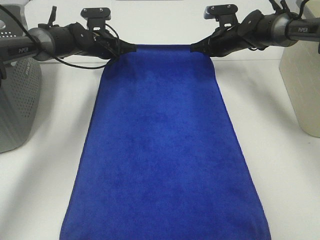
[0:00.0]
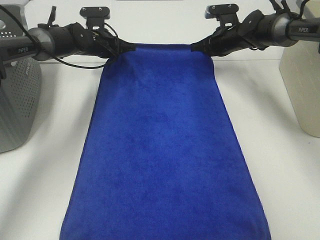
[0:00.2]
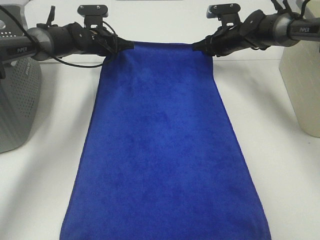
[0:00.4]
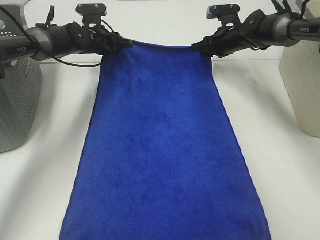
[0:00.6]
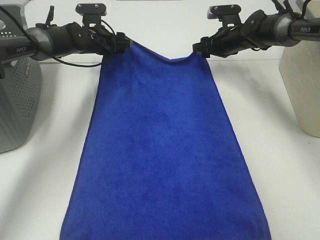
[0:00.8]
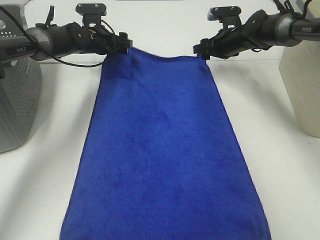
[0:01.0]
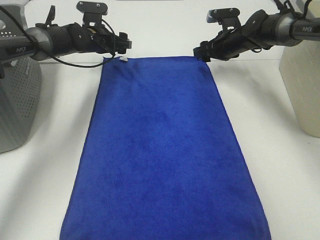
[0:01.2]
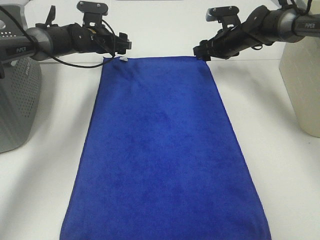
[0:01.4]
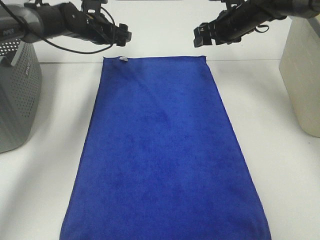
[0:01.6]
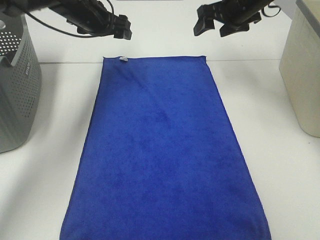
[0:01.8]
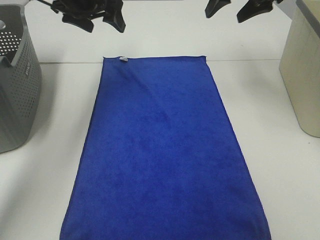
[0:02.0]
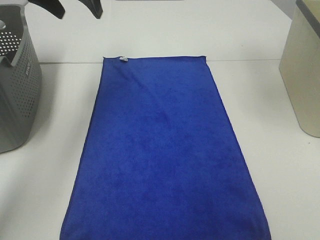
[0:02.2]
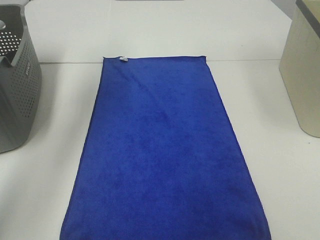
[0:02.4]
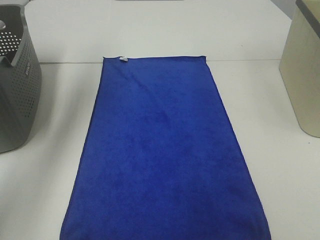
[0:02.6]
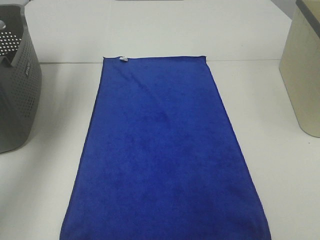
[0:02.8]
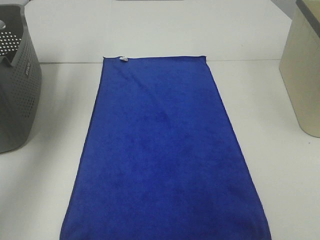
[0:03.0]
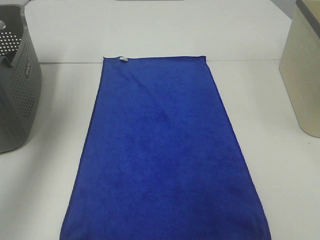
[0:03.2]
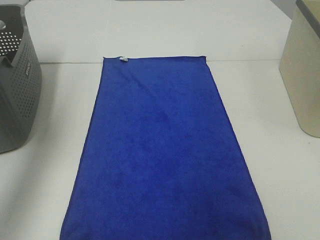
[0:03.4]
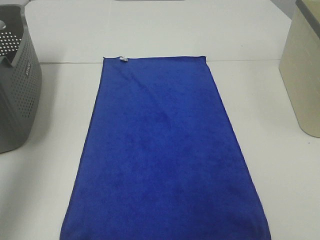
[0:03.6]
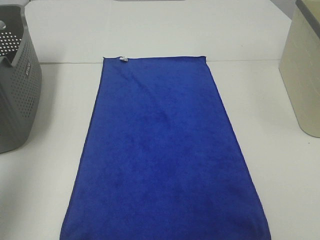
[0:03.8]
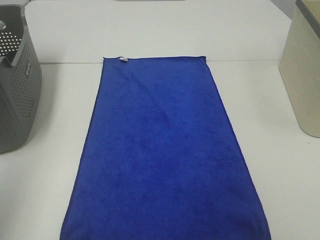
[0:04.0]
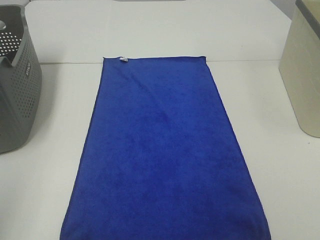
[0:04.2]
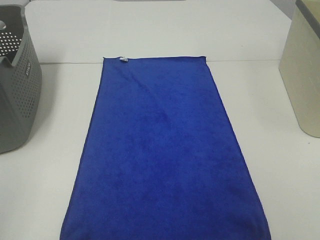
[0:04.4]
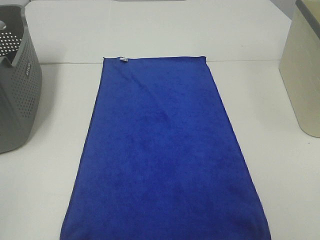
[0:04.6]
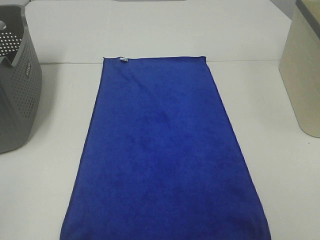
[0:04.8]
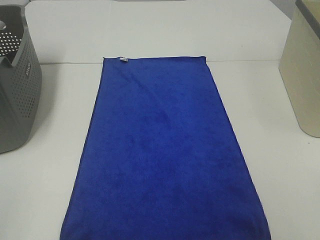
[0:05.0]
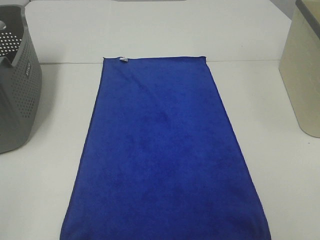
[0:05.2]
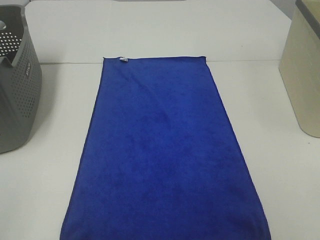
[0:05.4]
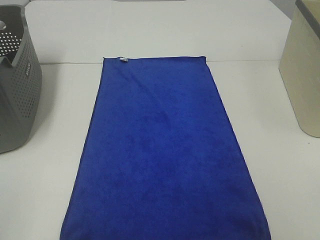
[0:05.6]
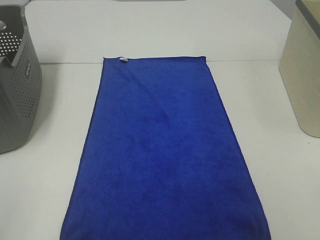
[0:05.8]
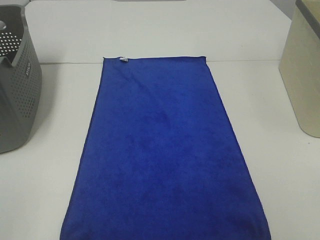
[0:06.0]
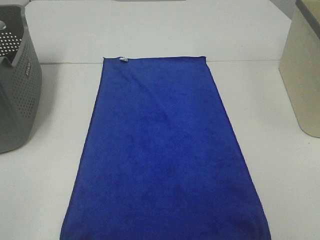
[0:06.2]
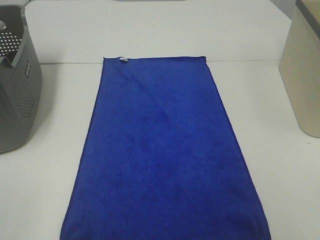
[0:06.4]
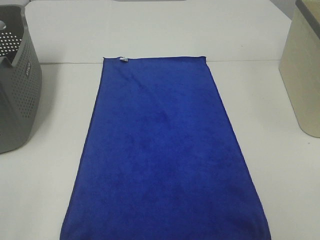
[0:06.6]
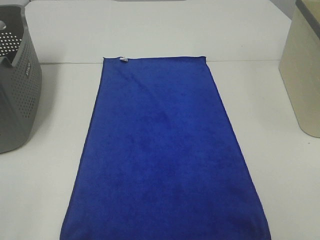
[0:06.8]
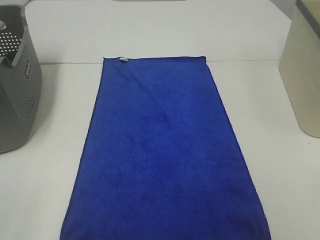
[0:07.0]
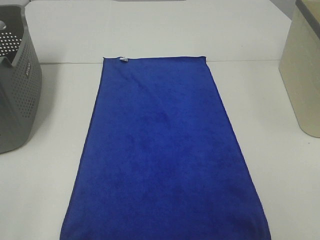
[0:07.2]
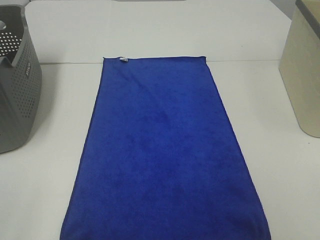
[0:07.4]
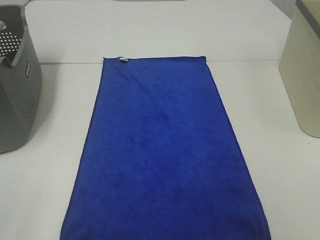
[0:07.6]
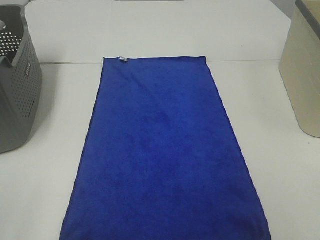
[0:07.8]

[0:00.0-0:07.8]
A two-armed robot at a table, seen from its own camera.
Task of the whole recording: Remove the towel and place it.
0:00.0 to 0:01.6: Both grippers move upward, approximately 5 cm. The right gripper opens up. Meanwhile the left gripper opens up.
0:01.6 to 0:03.2: The right gripper moves backward and upward, roughly 40 cm. The left gripper is displaced upward, backward and to the left by approximately 35 cm.
0:03.2 to 0:04.6: The left gripper shifts roughly 35 cm backward and downward.

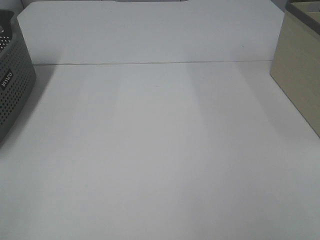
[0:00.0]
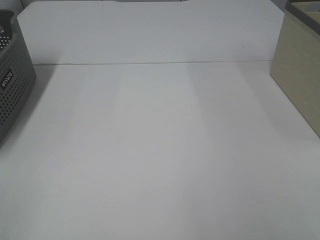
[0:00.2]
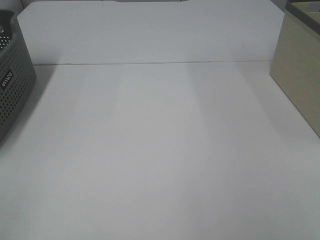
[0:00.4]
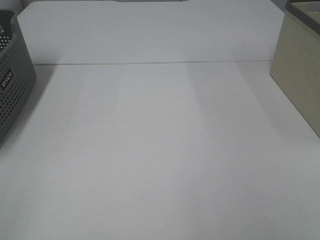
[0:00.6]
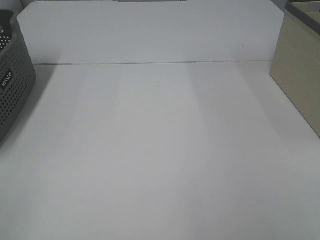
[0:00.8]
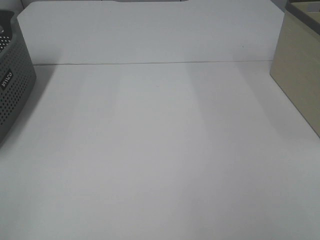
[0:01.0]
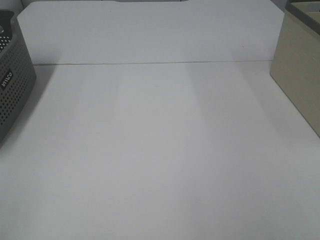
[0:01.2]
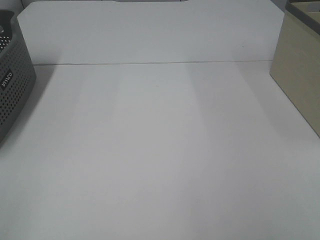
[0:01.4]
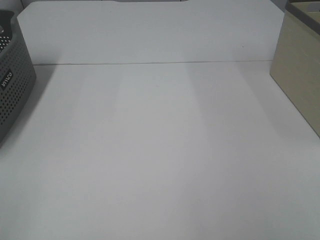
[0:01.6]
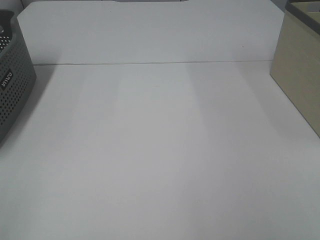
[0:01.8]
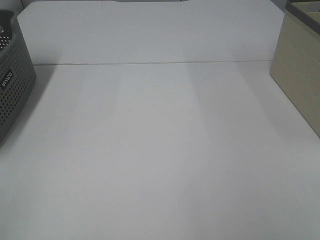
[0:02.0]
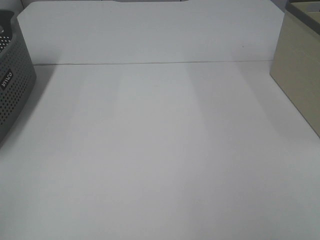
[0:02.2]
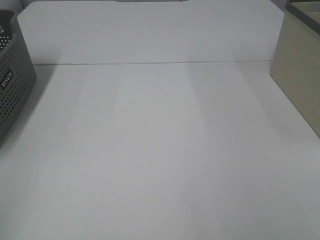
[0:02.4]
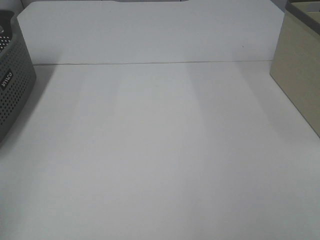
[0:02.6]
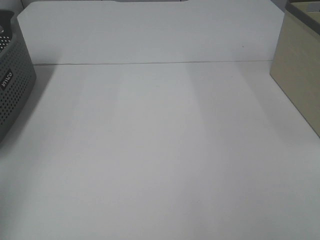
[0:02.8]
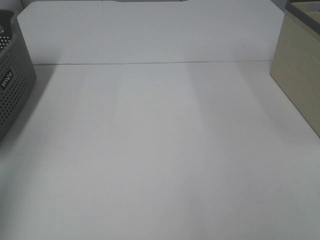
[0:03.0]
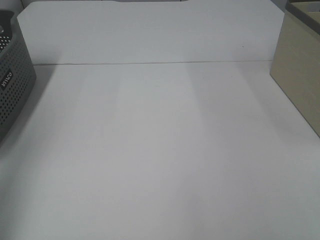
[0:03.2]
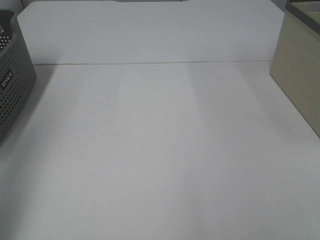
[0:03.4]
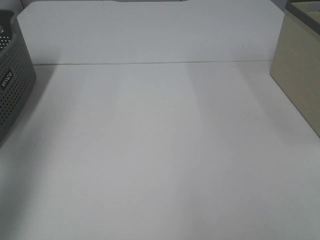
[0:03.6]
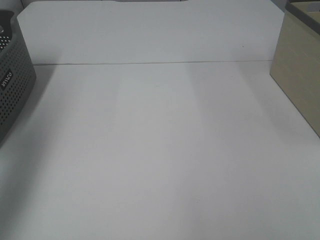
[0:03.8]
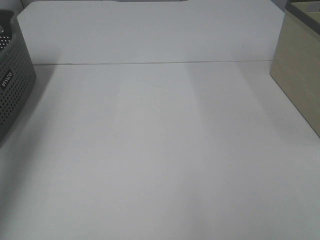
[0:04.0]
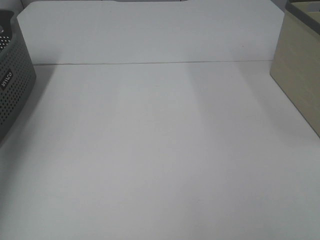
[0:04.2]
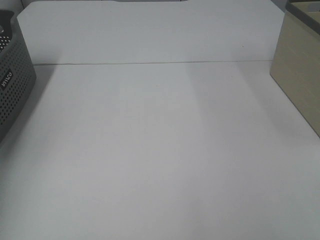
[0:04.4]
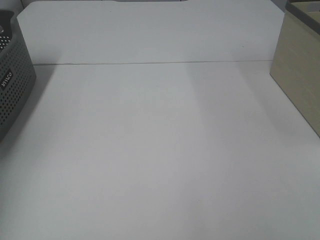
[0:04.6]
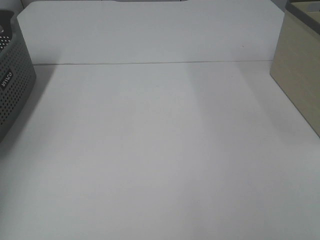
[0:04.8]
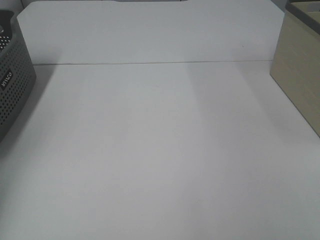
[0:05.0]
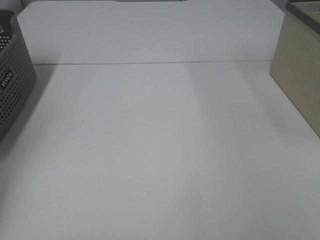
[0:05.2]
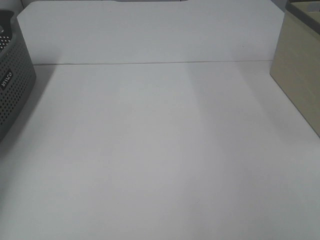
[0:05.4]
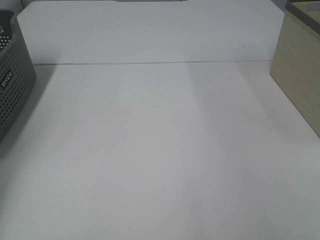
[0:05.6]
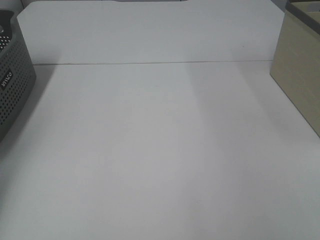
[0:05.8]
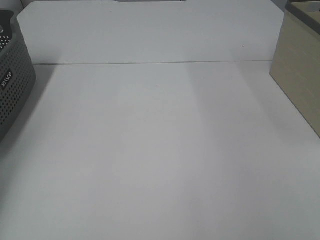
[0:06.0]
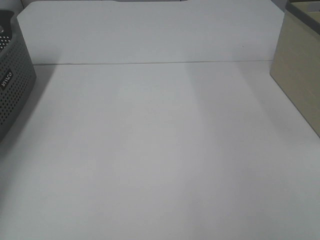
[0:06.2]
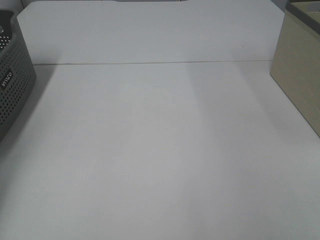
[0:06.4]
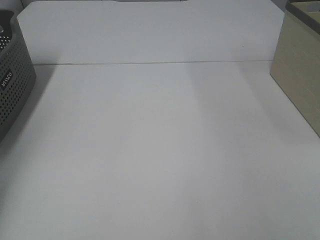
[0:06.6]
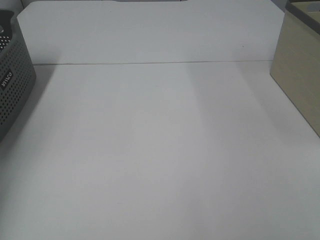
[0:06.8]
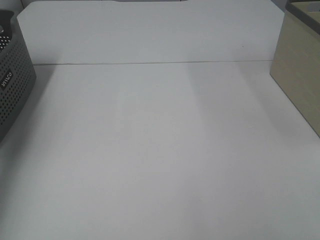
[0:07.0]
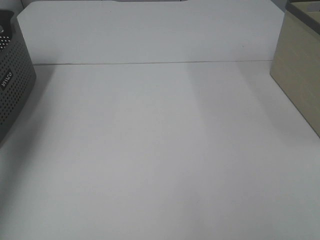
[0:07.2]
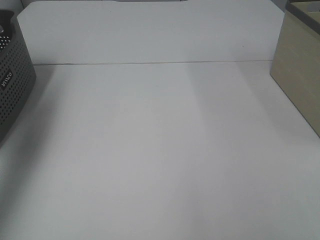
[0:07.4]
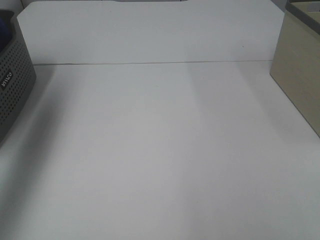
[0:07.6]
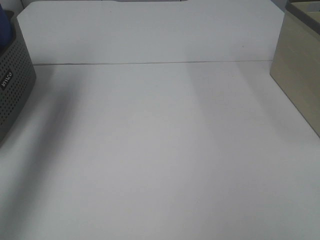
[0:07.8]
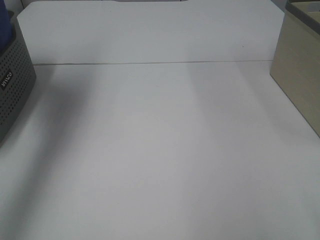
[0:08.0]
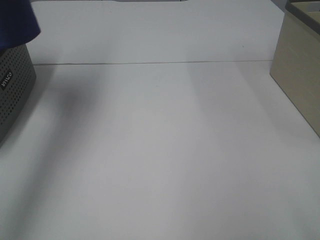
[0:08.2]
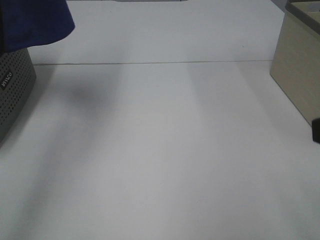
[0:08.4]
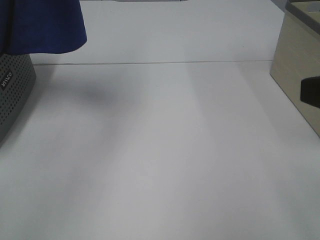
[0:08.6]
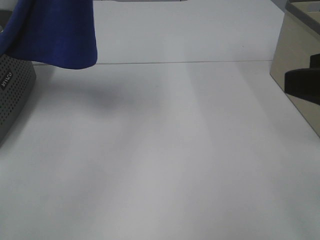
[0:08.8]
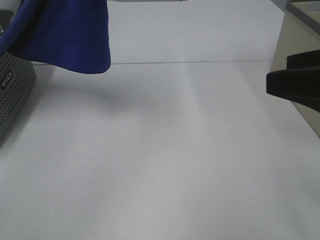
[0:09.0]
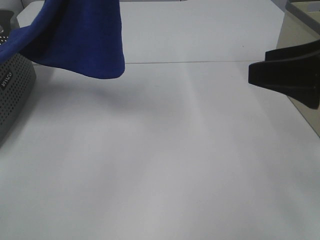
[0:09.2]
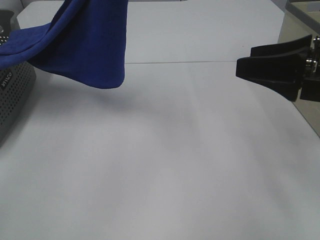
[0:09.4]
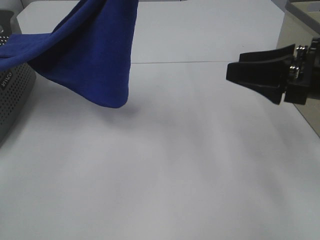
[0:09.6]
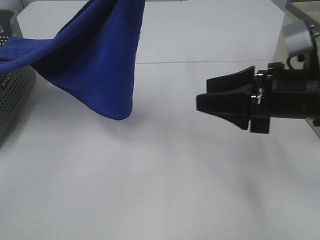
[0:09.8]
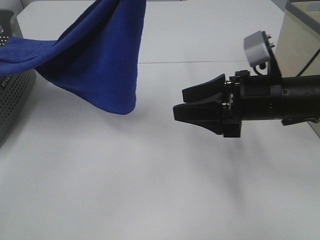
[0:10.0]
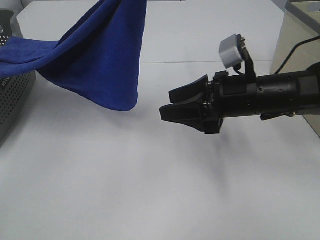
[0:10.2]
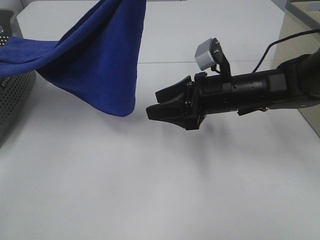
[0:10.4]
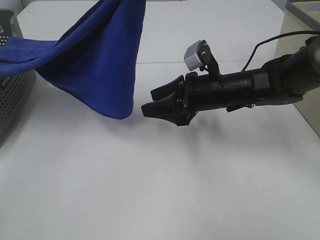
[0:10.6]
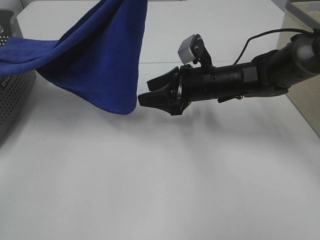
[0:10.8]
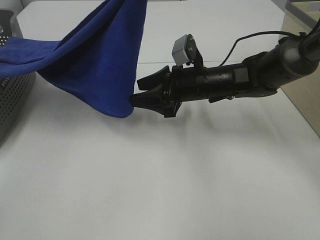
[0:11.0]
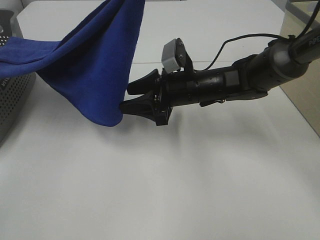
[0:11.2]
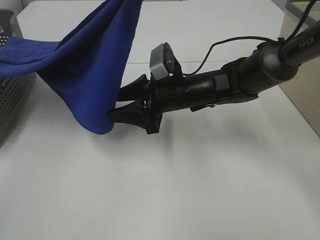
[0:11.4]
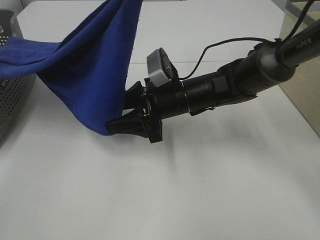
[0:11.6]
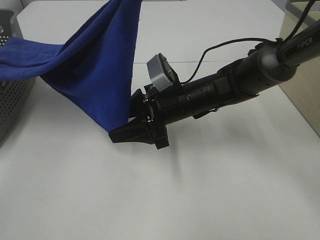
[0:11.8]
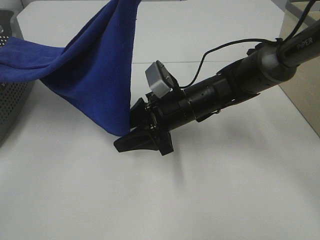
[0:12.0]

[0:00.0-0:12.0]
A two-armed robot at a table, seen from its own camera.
Task of the whole recording: Remove the towel and place it.
0:00.0 to 0:01.6: The two grippers keep their place.
0:01.6 to 0:03.0: The left gripper goes some 15 cm forward and upward.
0:06.0 to 0:07.6: The left gripper shifts roughly 30 cm upward and to the right.
0:07.6 to 0:09.0: The left gripper heads to the right, covering approximately 20 cm. Meanwhile the right gripper shifts about 15 cm forward.
0:09.0 to 0:10.4: The right gripper goes about 25 cm forward, downward and to the left; the left gripper ends up roughly 5 cm from where it was.
0:10.4 to 0:12.0: The right gripper moves to the left, approximately 5 cm.

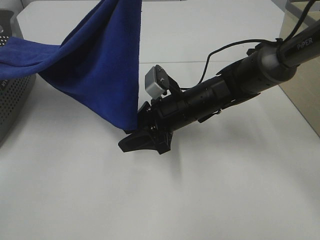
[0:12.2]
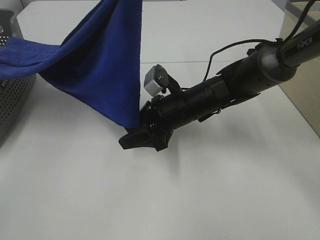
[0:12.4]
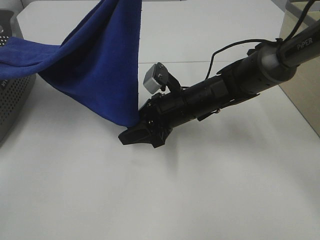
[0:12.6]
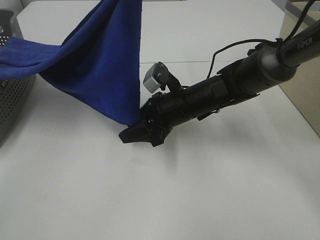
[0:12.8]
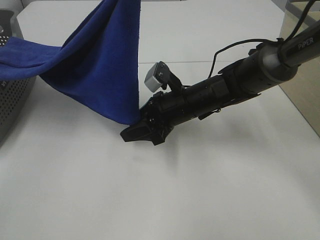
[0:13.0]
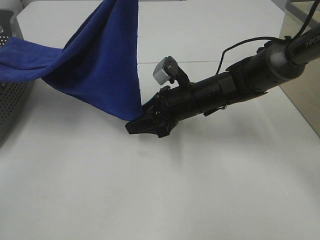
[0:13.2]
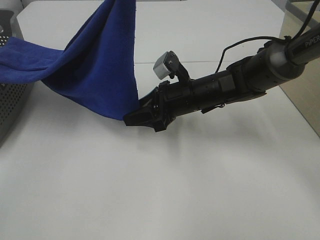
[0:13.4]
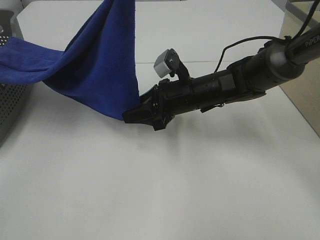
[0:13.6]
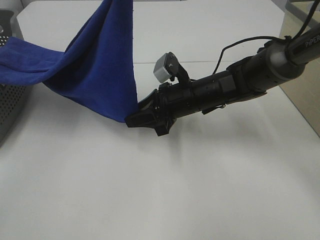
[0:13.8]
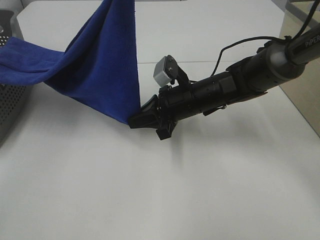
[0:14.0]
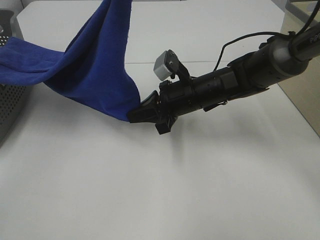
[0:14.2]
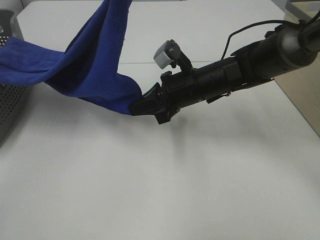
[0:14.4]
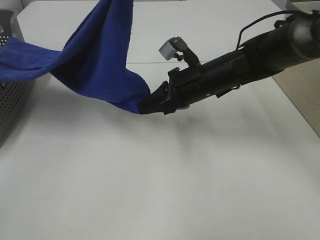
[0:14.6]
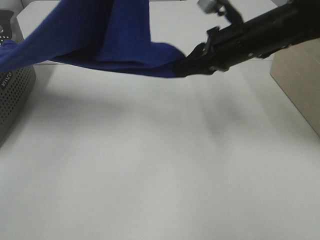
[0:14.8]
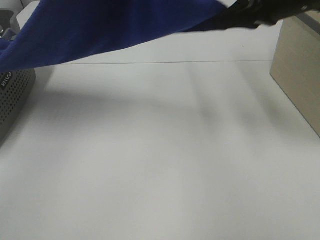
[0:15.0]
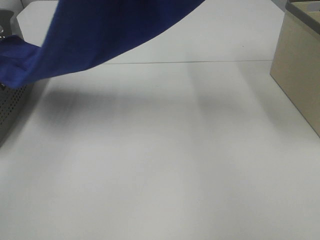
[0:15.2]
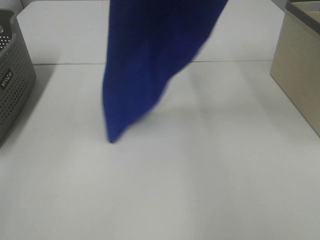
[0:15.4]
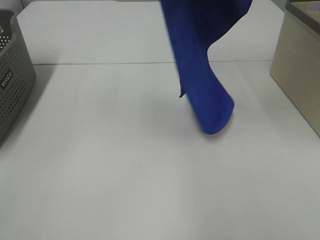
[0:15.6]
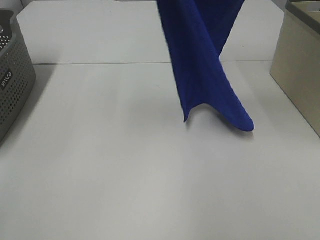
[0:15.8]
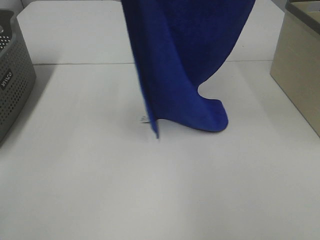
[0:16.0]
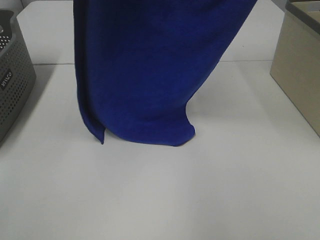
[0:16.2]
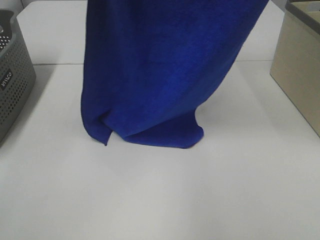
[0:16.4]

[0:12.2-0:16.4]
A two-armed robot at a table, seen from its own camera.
Task of the whole recording: Remove the towel and place it.
0:12.2 to 0:13.6: The grippers make only small movements.
0:13.6 to 0:15.0: The right gripper moves upward and to the right, roughly 25 cm, and closes its fingers. Meanwhile the left gripper travels upward by some 5 cm.
0:15.0 to 0:16.4: The left gripper moves to the left, some 5 cm. The right gripper travels upward by about 20 cm.
